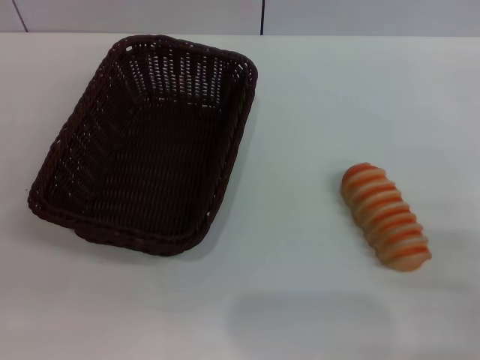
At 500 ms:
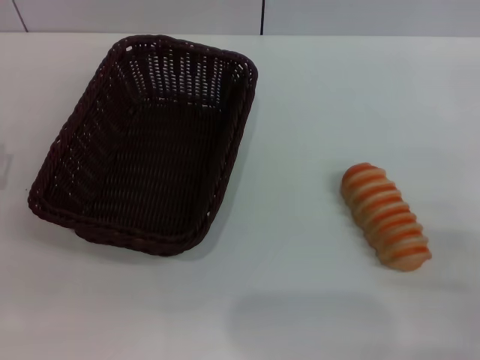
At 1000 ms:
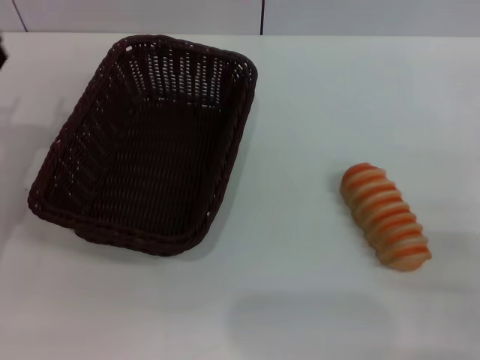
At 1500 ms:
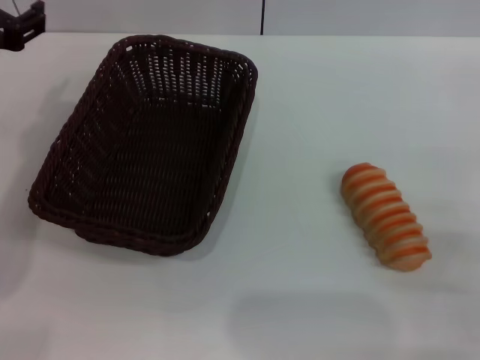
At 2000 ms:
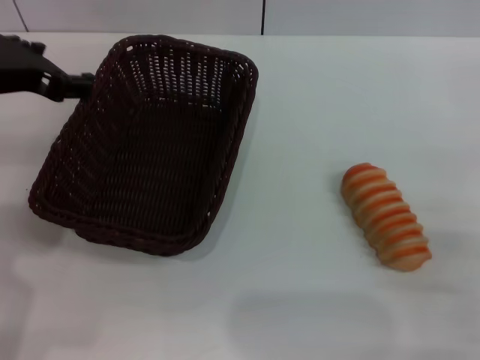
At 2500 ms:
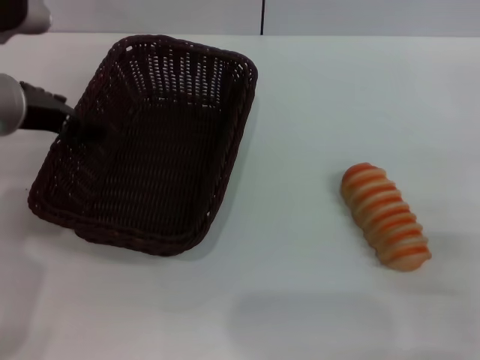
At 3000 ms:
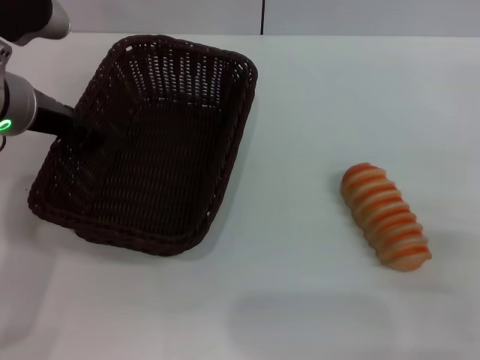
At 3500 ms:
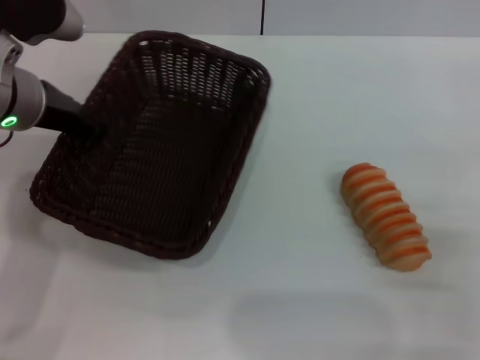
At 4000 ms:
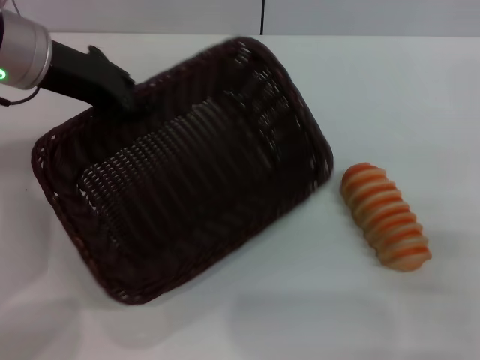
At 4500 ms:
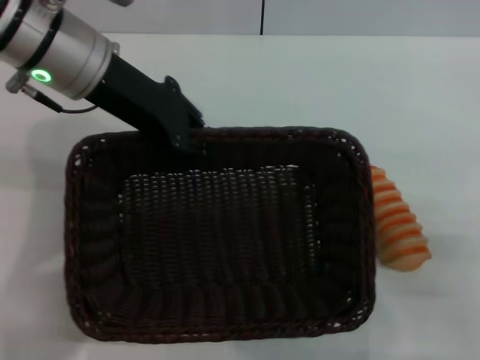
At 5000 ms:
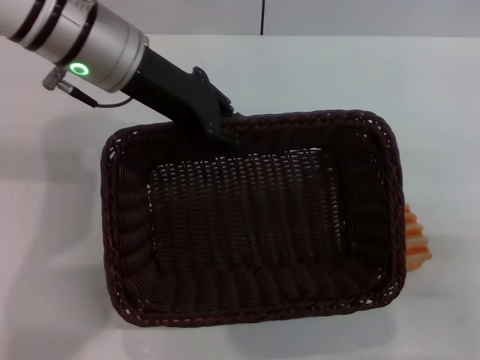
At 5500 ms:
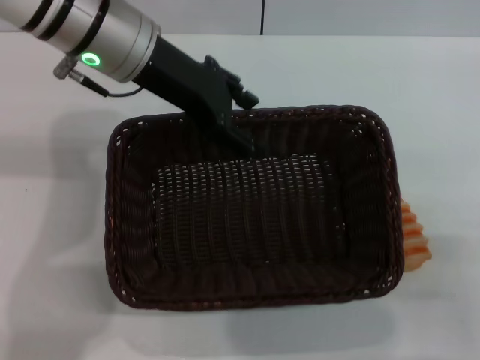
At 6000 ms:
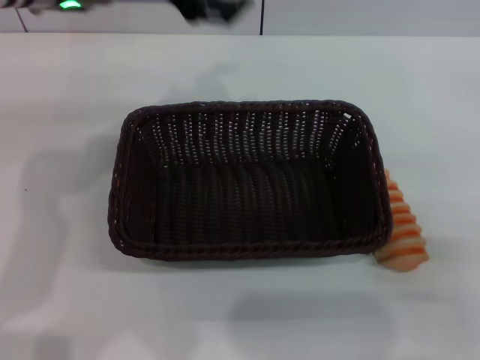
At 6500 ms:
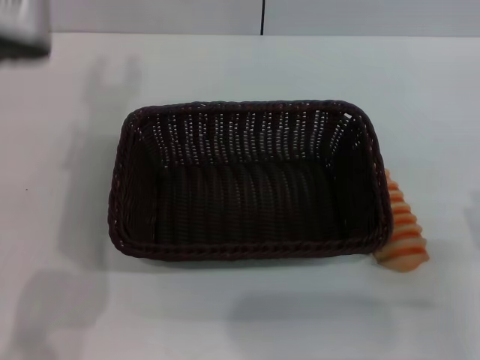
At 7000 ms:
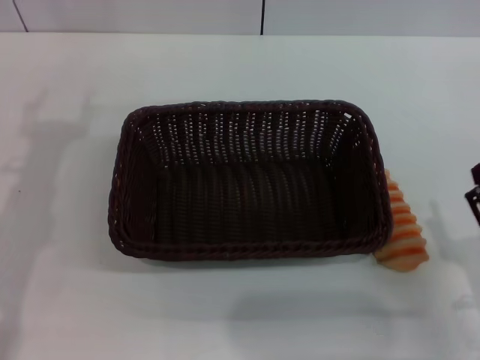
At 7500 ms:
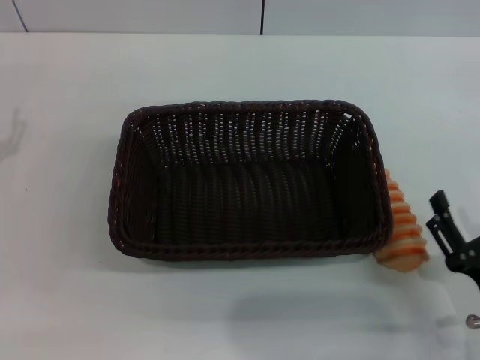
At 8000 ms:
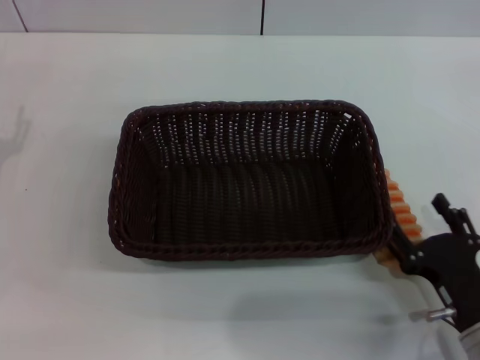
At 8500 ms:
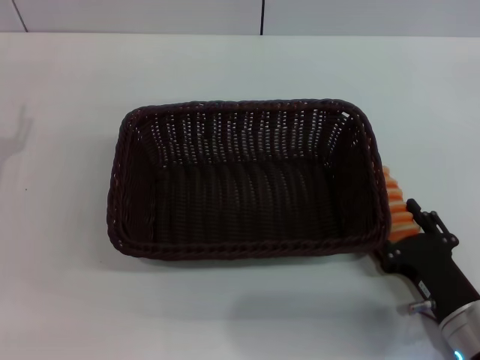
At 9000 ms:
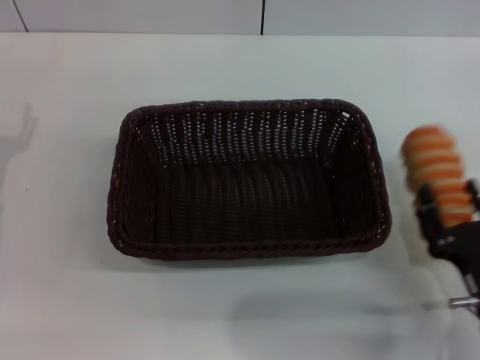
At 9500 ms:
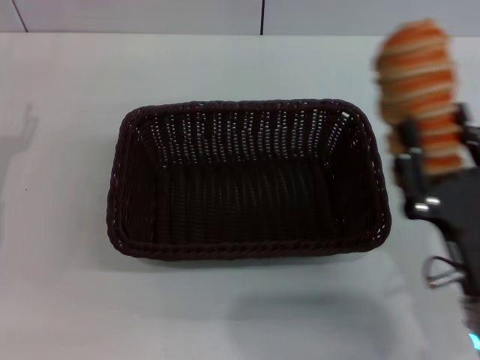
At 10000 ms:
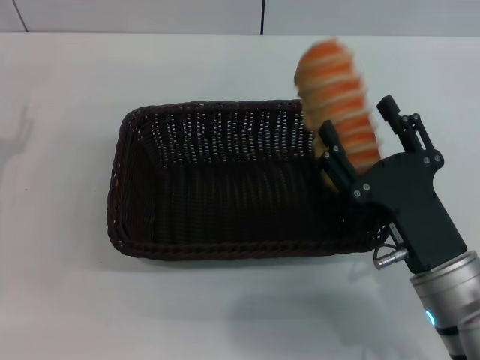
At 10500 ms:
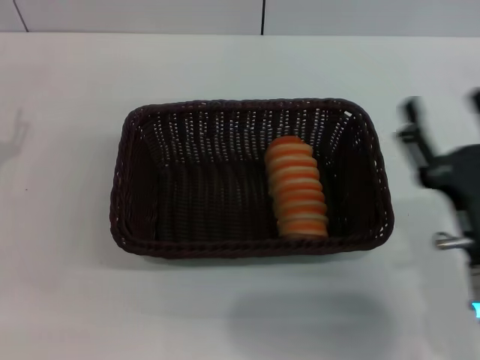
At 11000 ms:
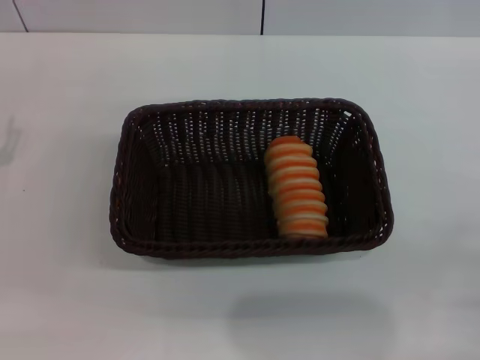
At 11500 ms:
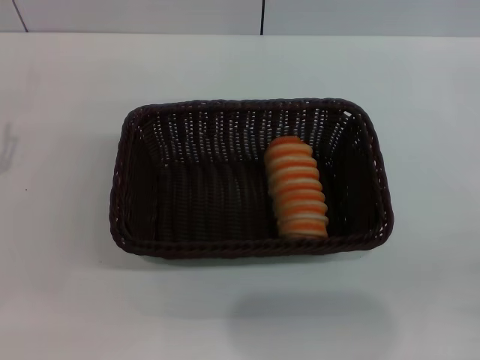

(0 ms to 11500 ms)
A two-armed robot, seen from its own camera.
Step, 0 ms - 3500 ms: Pick up the dark basket with the left gripper.
Step, 4000 ms - 5500 ms: Place the dark basket in the center of view with the left gripper.
Step, 6000 ms - 9000 ms: Pick up the long bread with the right gripper.
Step, 9500 ms - 10000 ms: Place the long bread into the dark basket with the right gripper.
0 ms - 2000 ms: The left gripper goes some 25 cm upward, forward and to the right.
2000 ms - 4000 ms: The left gripper shifts approximately 5 cm forward, and closes.
4000 ms - 6000 ms: The left gripper shifts roughly 5 cm to the right, and opens its fingers.
6000 ms - 7500 ms: The right gripper ends up some 5 cm from where it was; the left gripper heads downward, to the left and backward, covering roughly 30 cm.
7500 ms - 9500 ms: The right gripper shifts by approximately 5 cm, and closes its fingers.
9500 ms - 11500 ms: The right gripper heads to the right, covering about 10 cm, and opens its fingers.

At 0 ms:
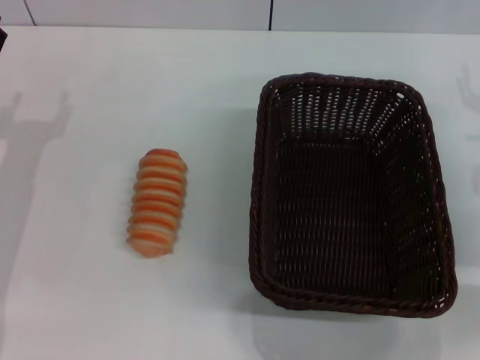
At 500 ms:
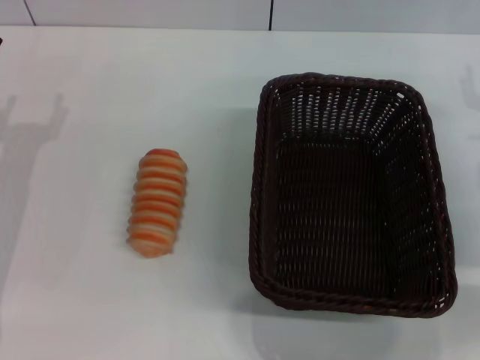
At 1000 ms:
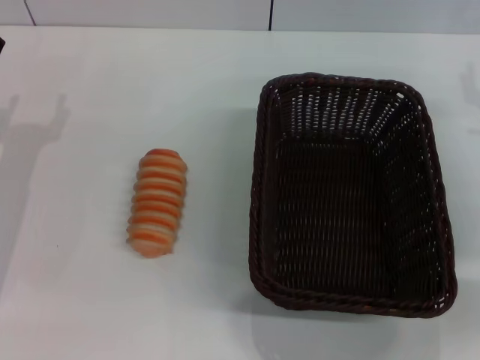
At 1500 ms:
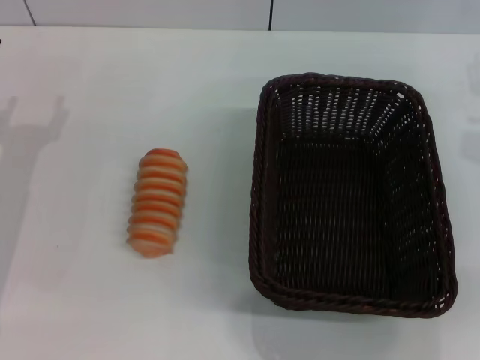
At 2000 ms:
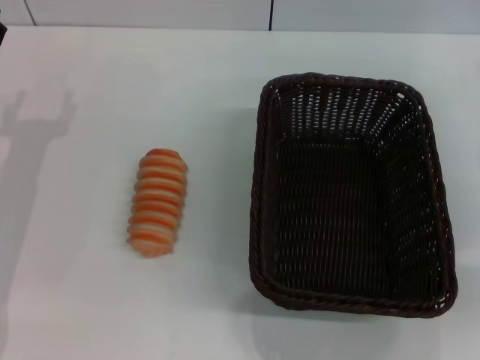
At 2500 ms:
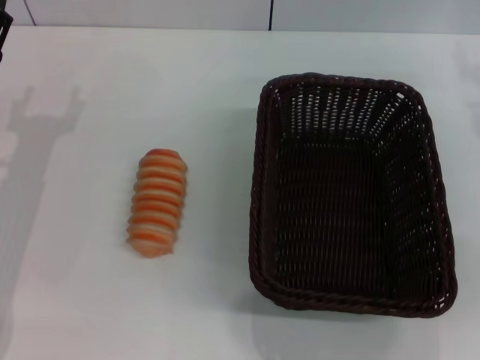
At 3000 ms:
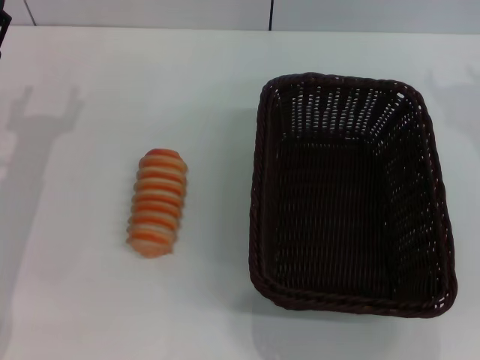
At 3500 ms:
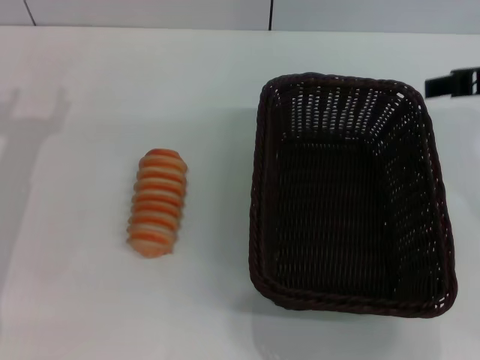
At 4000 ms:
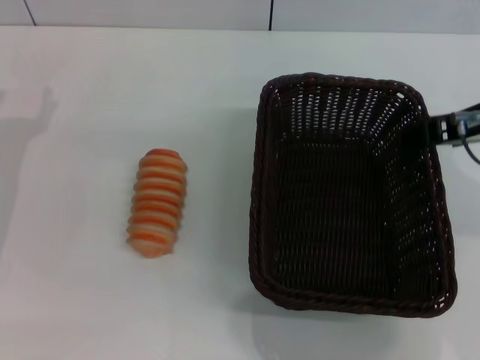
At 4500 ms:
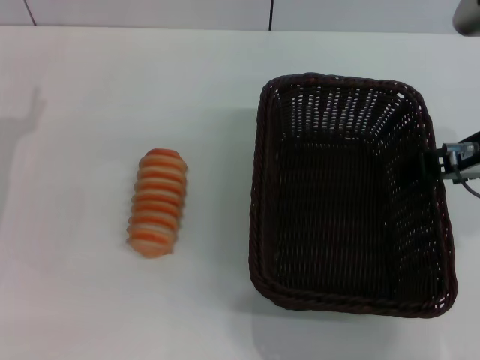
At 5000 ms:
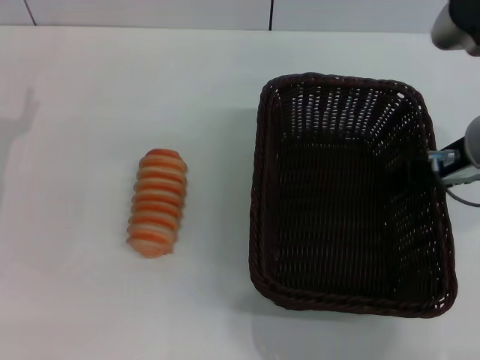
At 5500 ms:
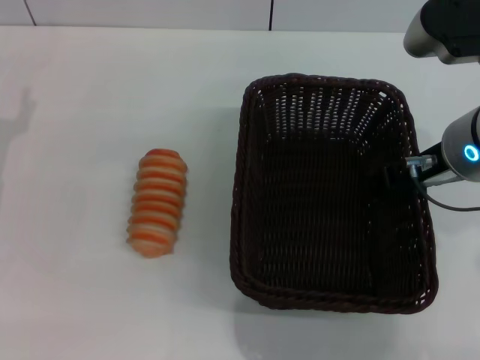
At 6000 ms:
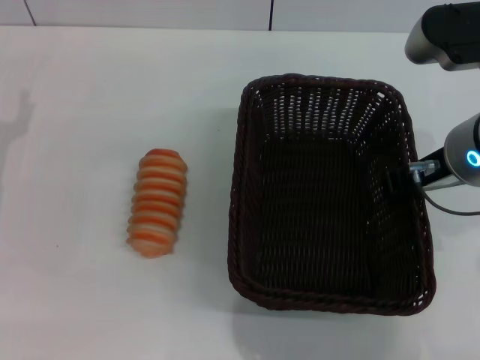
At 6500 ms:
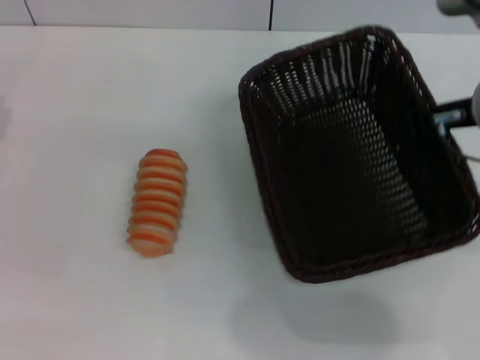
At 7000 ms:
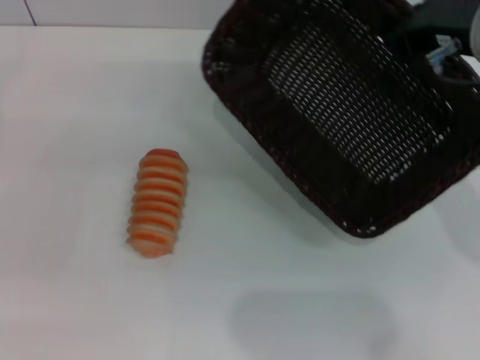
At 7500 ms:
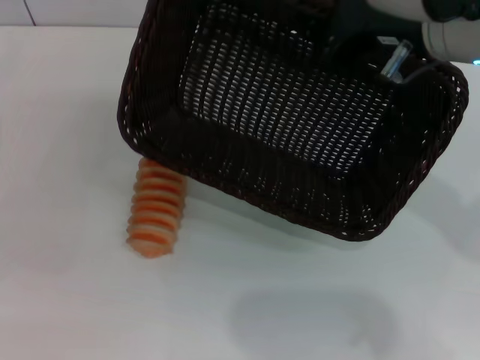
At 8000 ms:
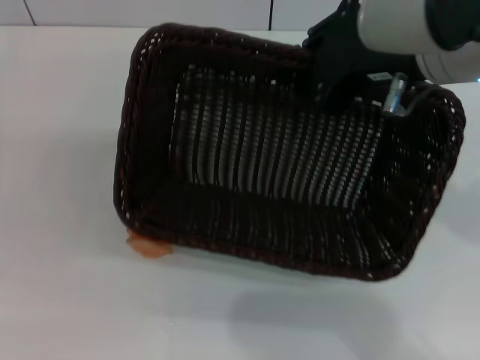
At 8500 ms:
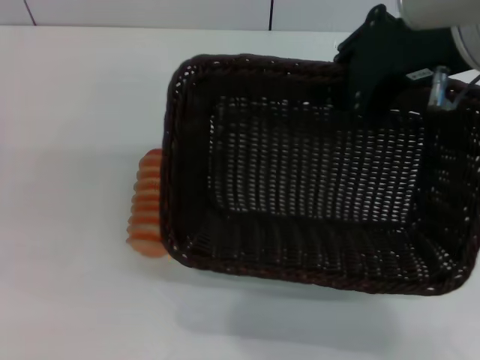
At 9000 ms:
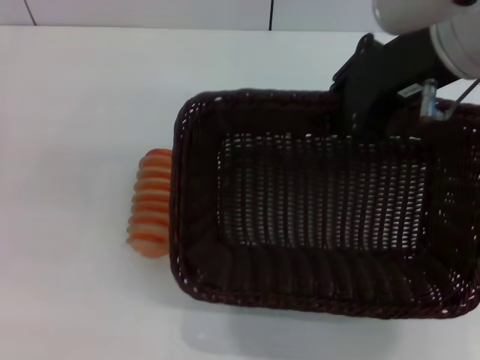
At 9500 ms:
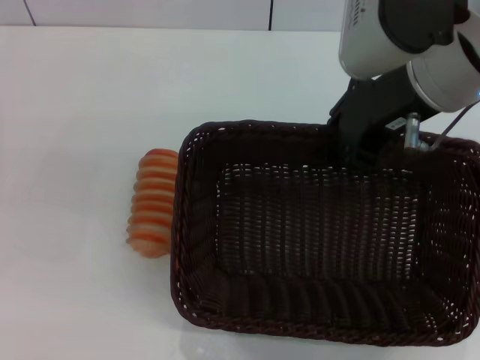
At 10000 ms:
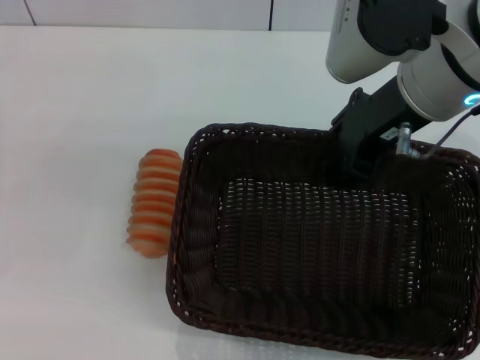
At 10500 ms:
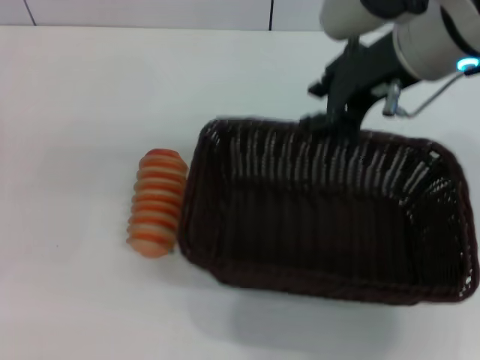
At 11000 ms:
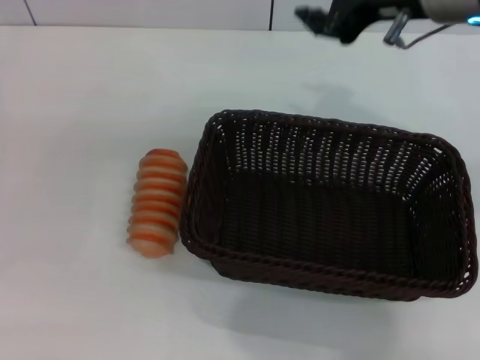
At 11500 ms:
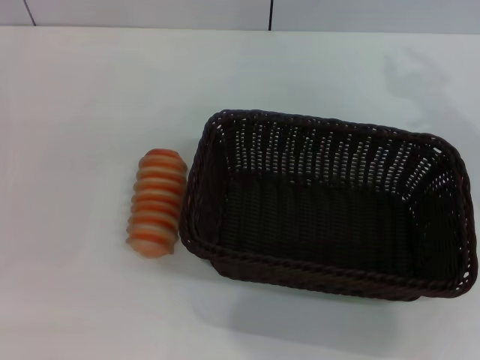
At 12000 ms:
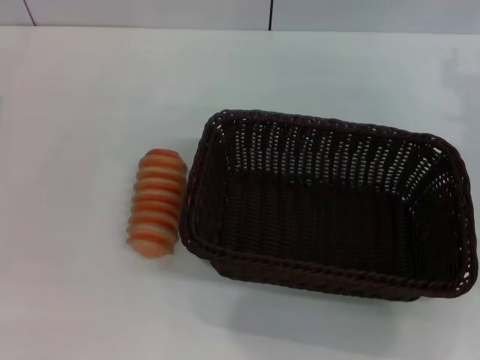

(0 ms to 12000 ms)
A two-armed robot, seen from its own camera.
Step, 0 ms - 6000 ms: Pick up the dark basket with the right gripper.
Step, 7000 ms - 10500 ms: Place the dark basket in the center of view with the right gripper.
2000 ms - 4000 ms: The right gripper is displaced to the left and upward by roughly 15 cm.
4000 ms - 6000 ms: The right gripper closes its fingers.
6000 ms - 8000 ms: The right gripper heads upward, covering some 10 cm.
10000 ms - 12000 ms: The right gripper shifts about 15 cm to the right and downward, and opens.

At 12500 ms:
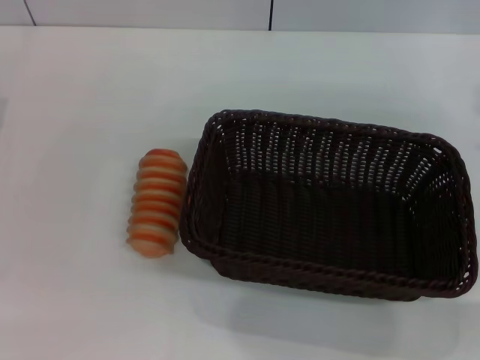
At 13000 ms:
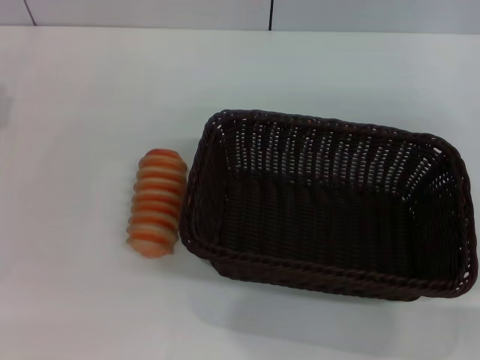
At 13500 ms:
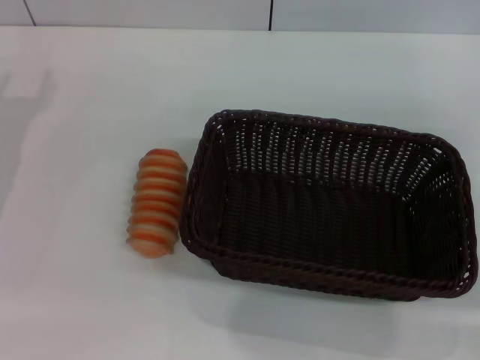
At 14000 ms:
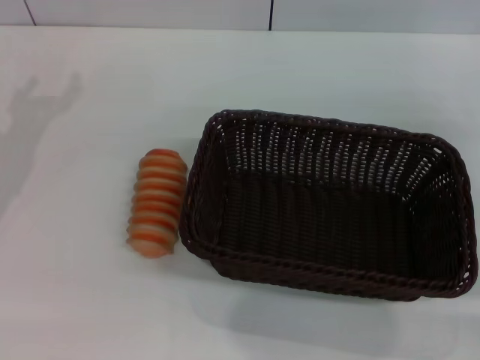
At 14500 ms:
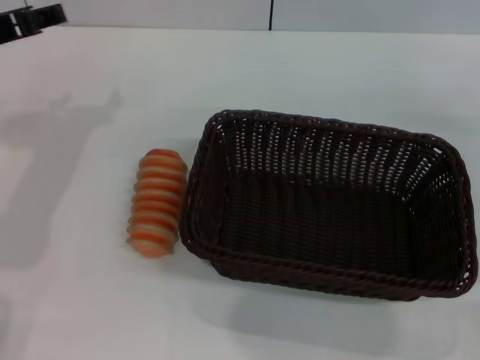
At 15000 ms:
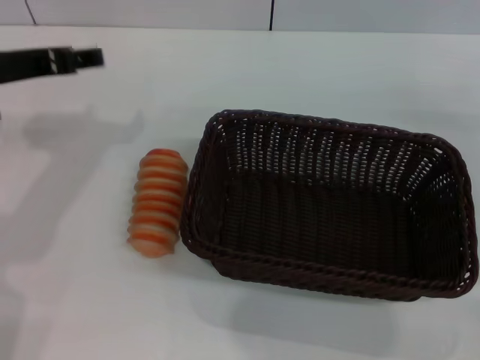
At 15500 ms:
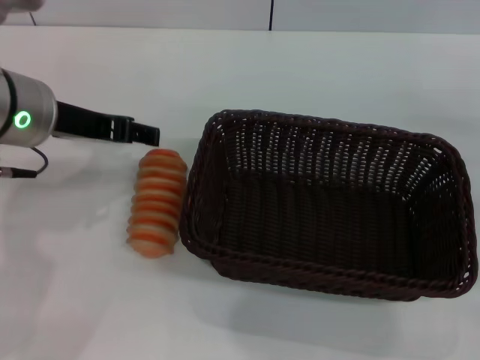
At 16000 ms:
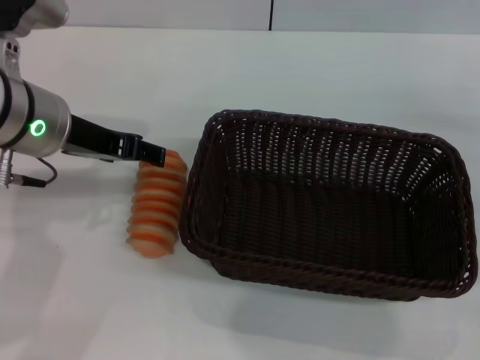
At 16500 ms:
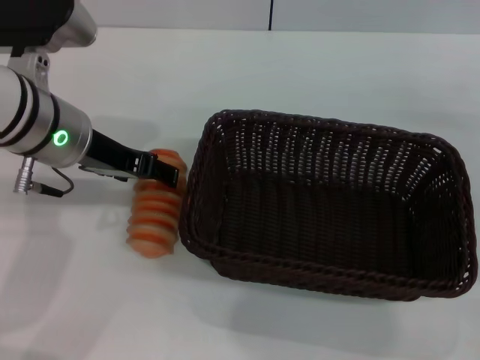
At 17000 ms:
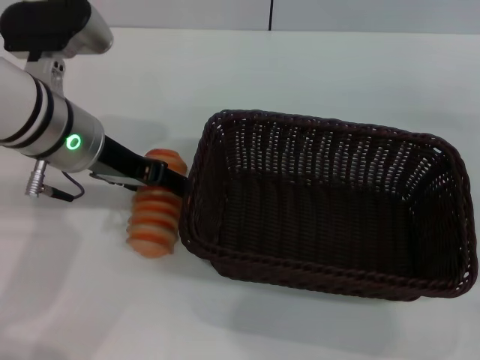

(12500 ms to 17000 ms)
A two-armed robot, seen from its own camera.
12500 ms - 14500 ms: The left gripper moves upward and to the right, about 15 cm.
14500 ms - 17000 ms: The left gripper heads to the right and downward, covering some 10 cm.
